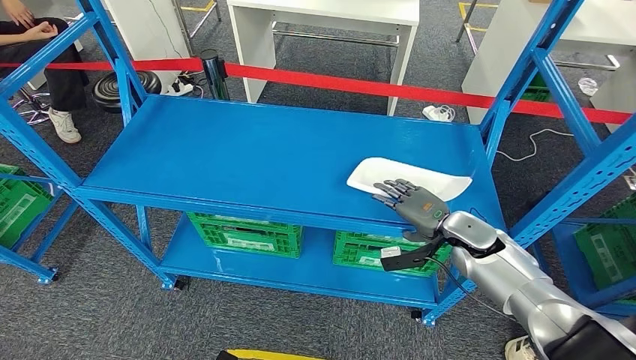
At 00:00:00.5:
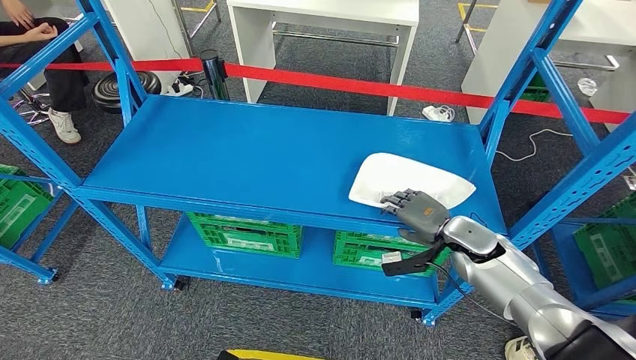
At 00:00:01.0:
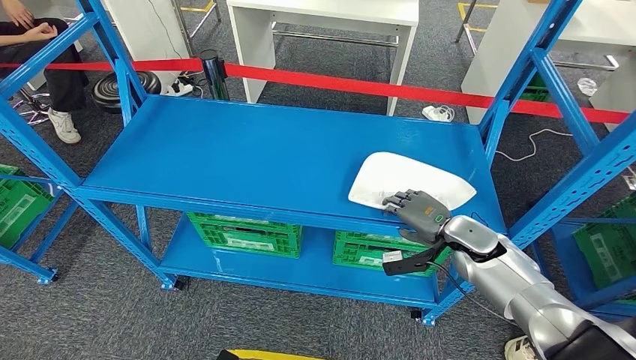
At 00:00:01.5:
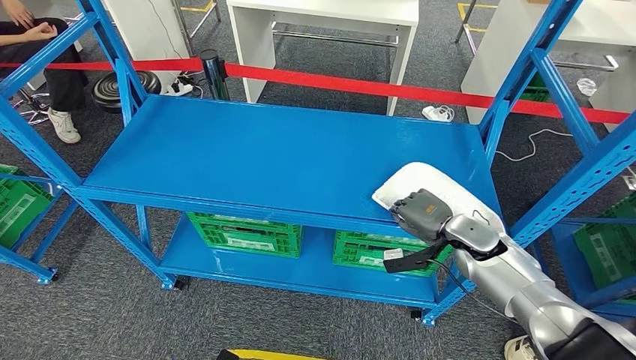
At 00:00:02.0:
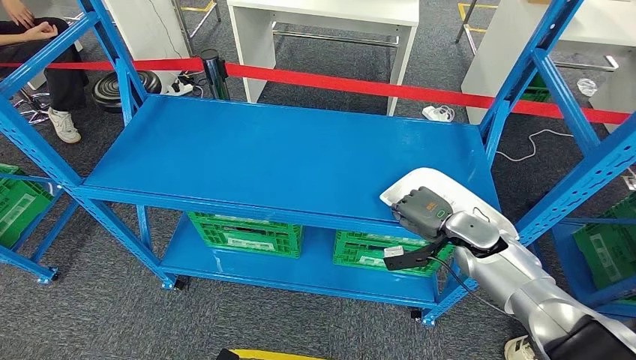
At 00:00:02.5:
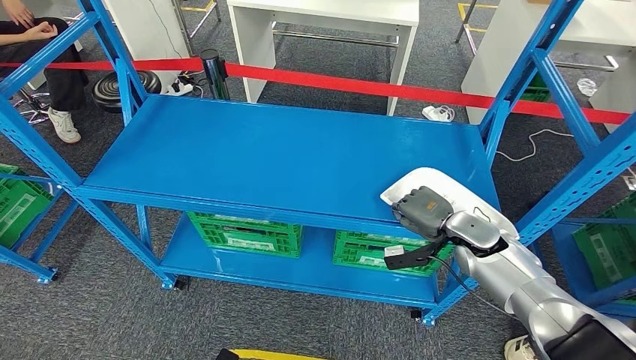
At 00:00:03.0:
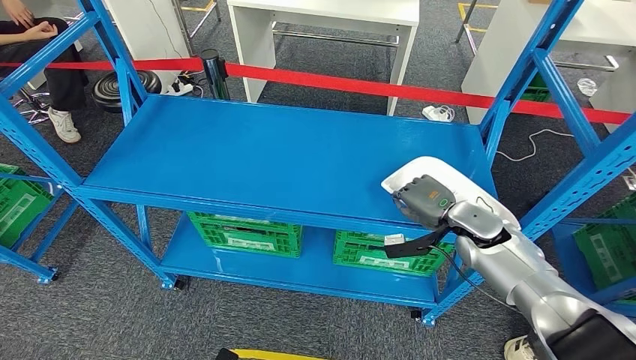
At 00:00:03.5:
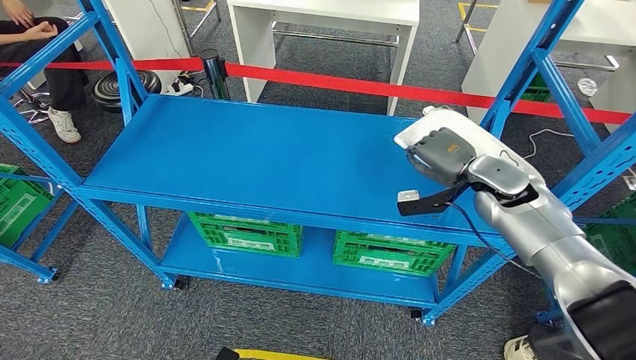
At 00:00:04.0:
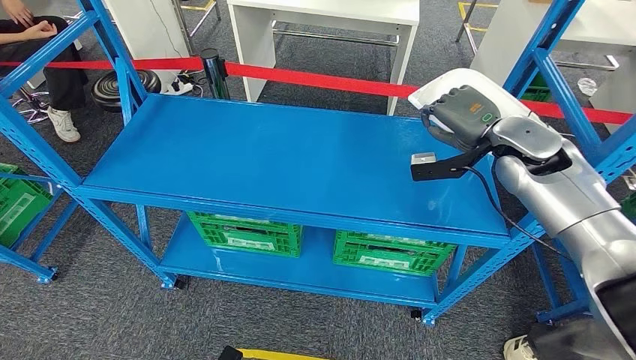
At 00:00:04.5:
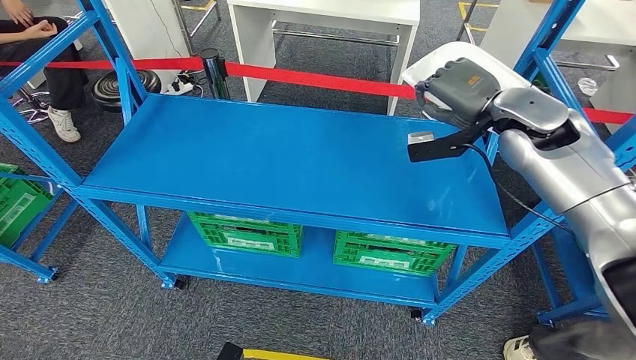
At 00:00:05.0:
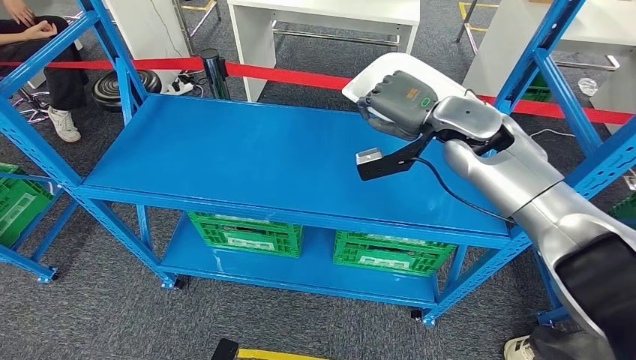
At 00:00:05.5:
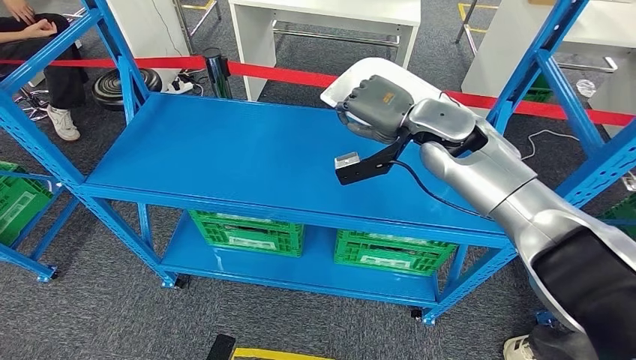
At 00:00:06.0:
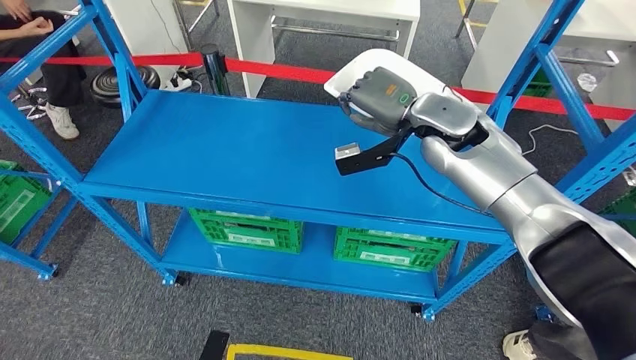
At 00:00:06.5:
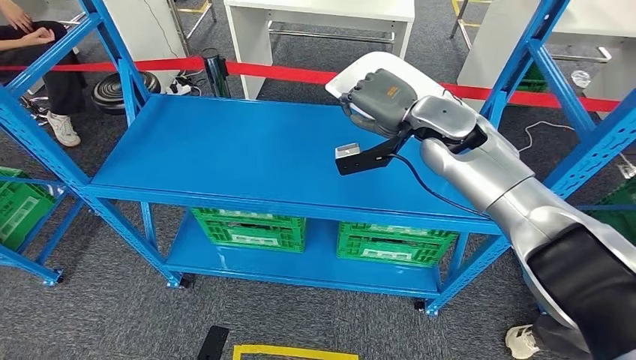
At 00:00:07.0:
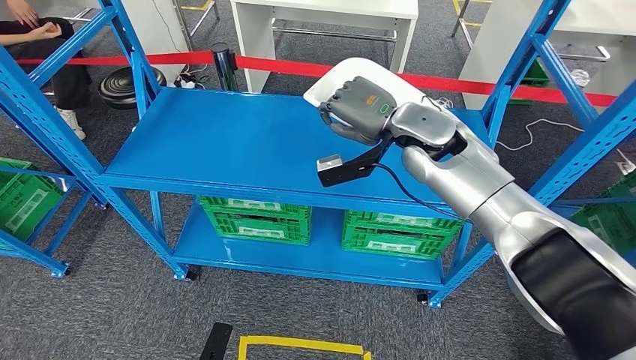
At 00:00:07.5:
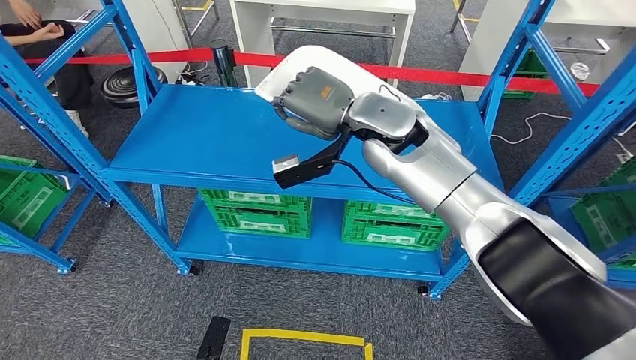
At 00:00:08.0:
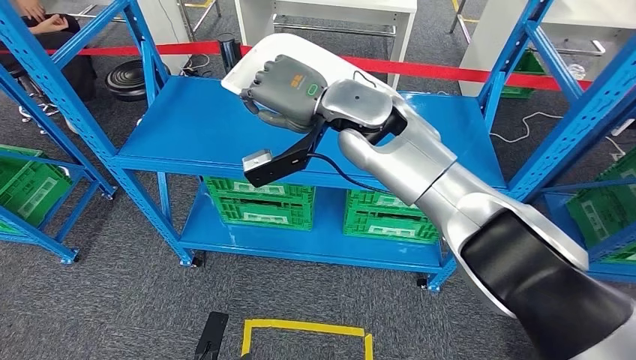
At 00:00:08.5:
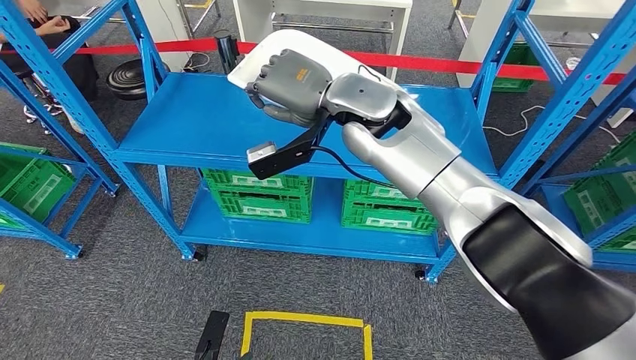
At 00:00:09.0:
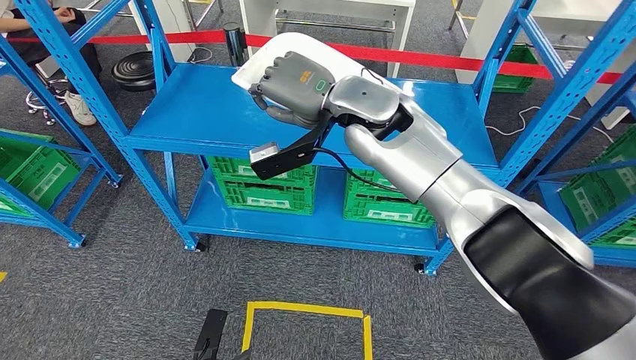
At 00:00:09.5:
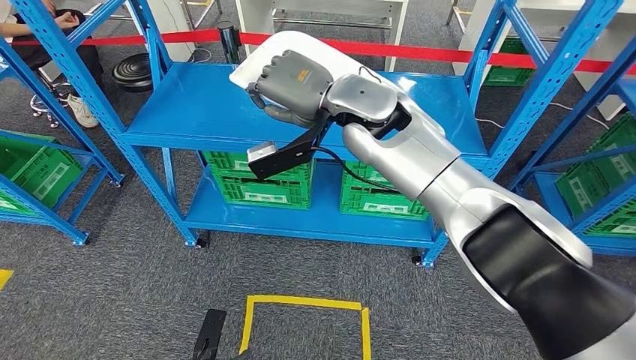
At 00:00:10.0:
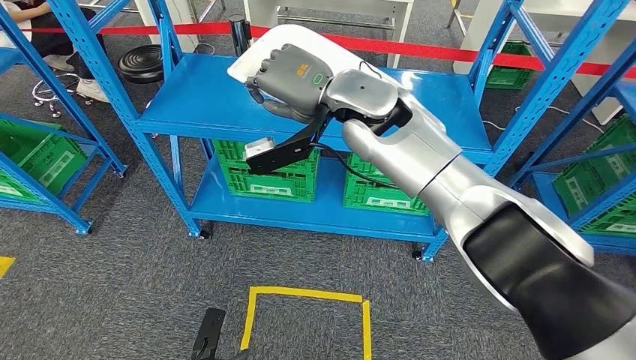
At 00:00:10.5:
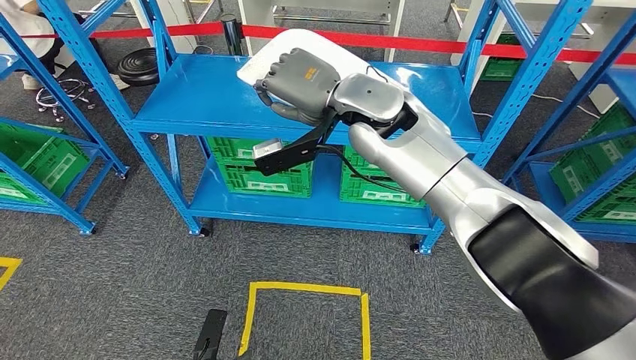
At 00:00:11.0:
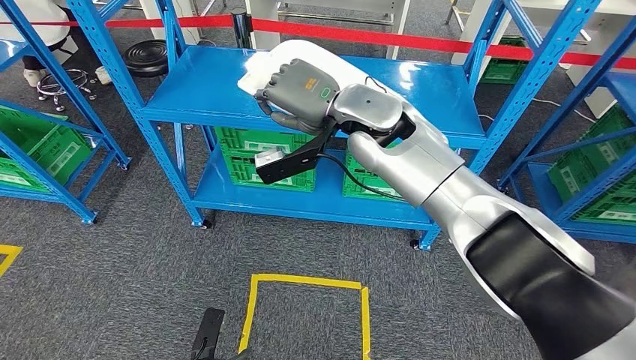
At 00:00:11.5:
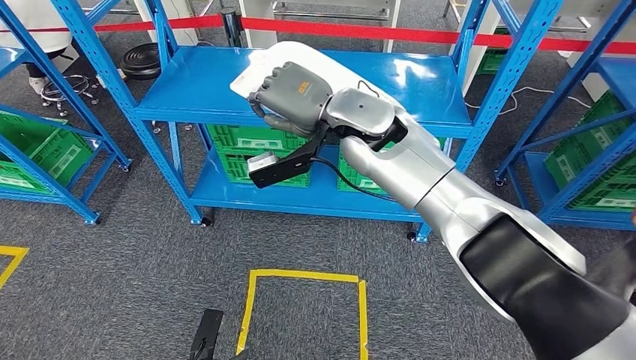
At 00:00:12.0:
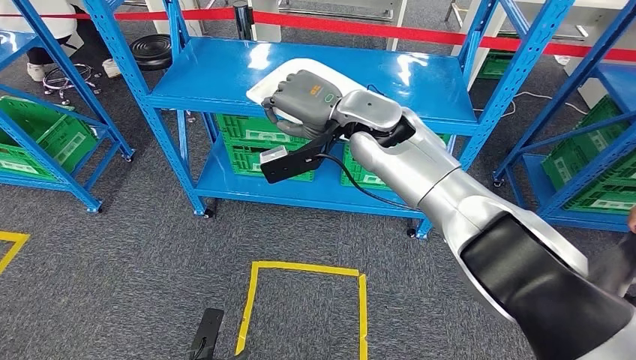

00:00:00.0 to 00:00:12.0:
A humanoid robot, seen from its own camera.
Step, 00:00:00.0 to 00:00:05.5: Pick up the small parts from the shelf.
00:00:00.0 to 00:00:02.0: Both hands stay about where they are.
00:00:02.0 to 00:00:04.0: The right hand goes roughly 20 cm upward.

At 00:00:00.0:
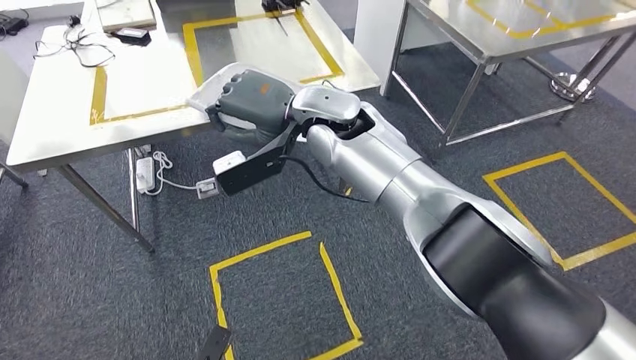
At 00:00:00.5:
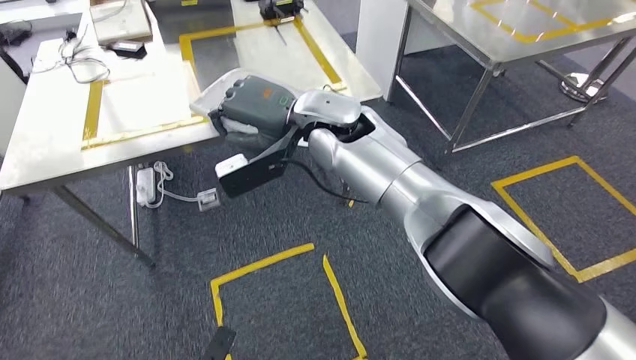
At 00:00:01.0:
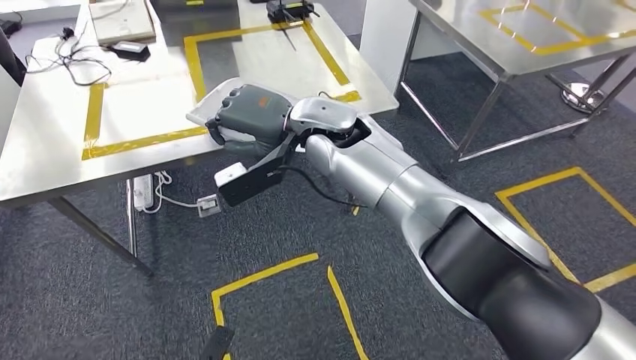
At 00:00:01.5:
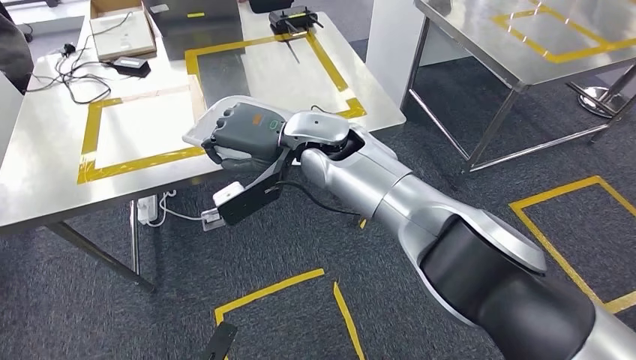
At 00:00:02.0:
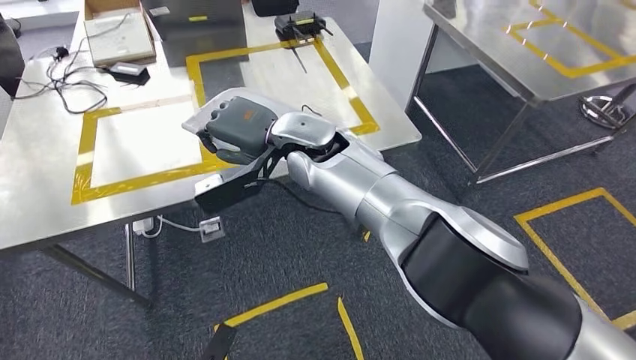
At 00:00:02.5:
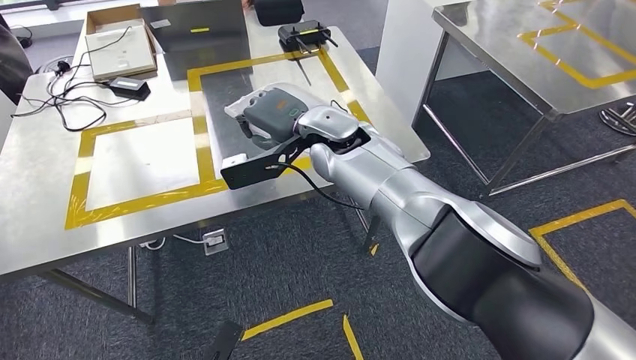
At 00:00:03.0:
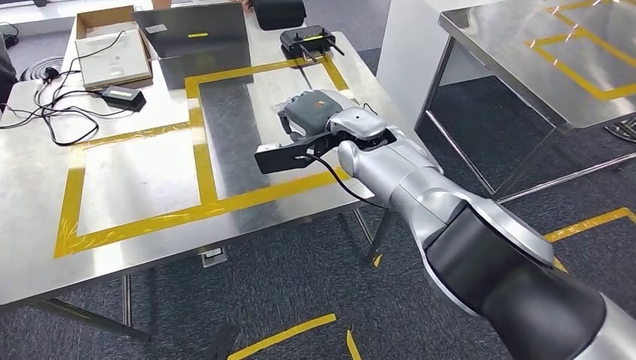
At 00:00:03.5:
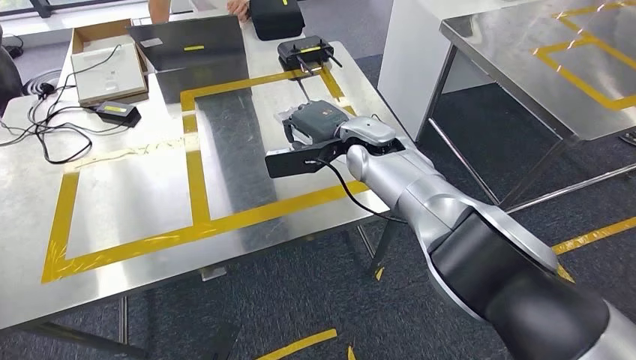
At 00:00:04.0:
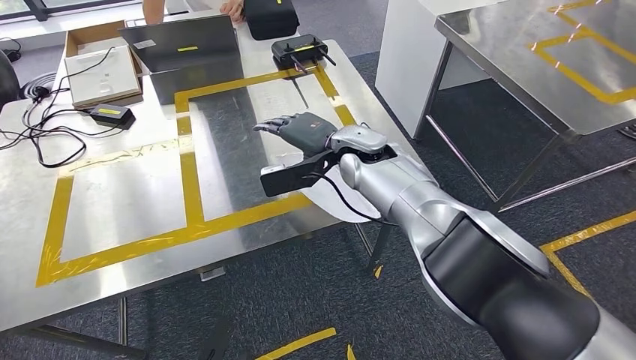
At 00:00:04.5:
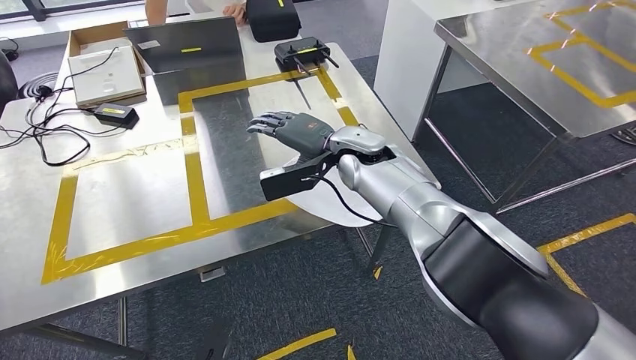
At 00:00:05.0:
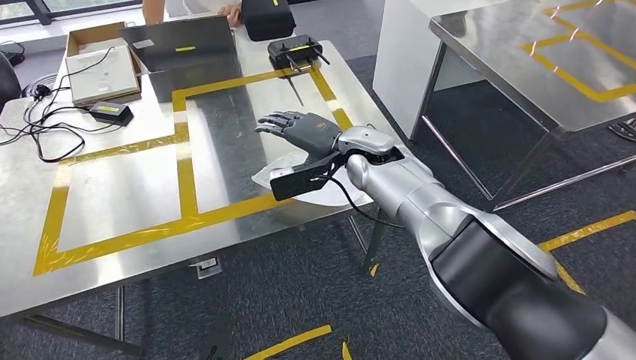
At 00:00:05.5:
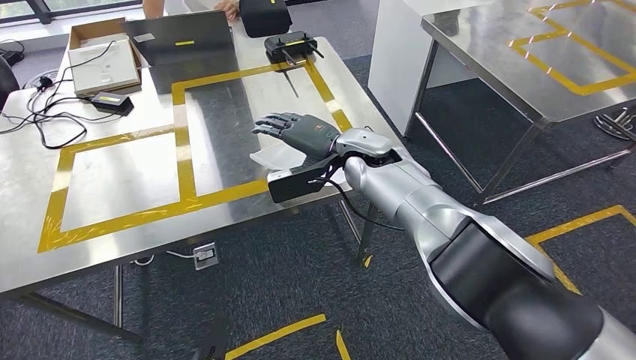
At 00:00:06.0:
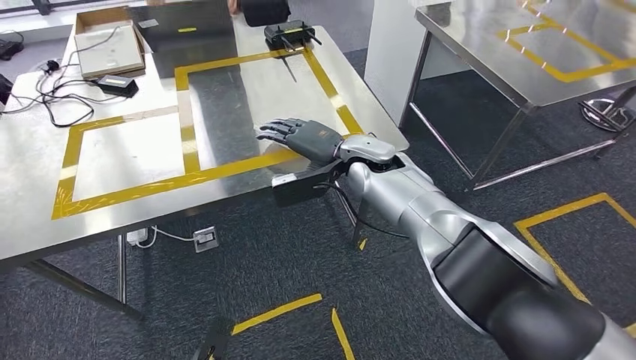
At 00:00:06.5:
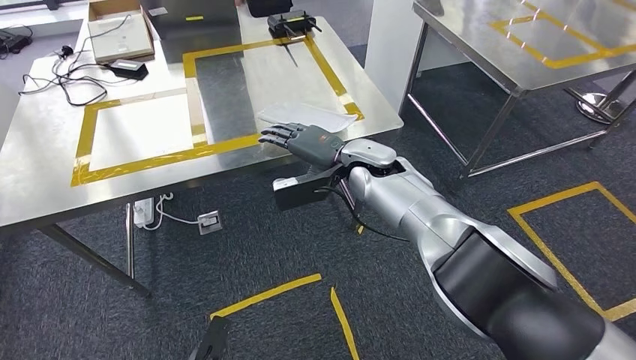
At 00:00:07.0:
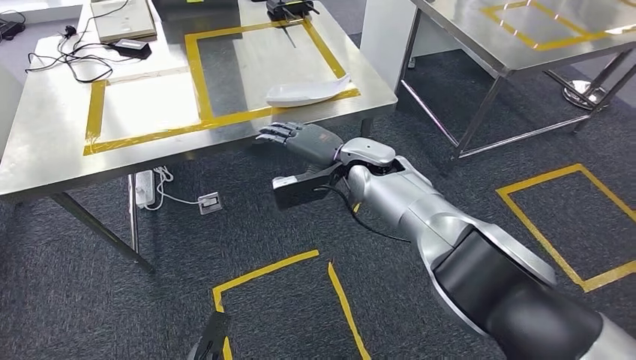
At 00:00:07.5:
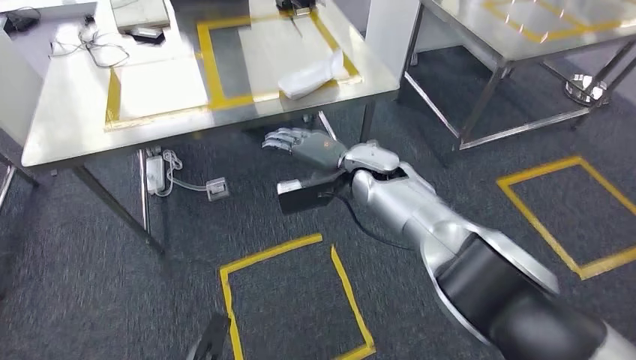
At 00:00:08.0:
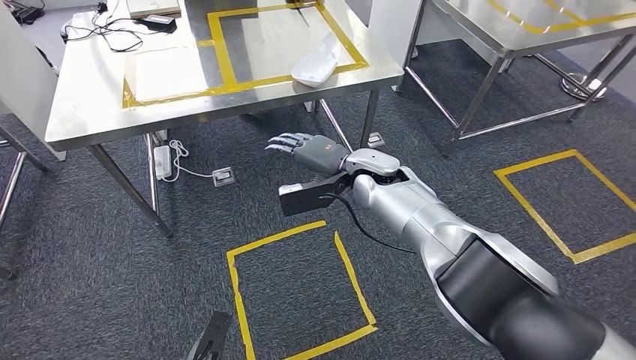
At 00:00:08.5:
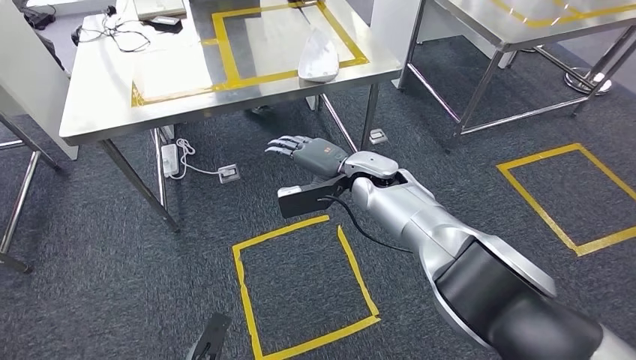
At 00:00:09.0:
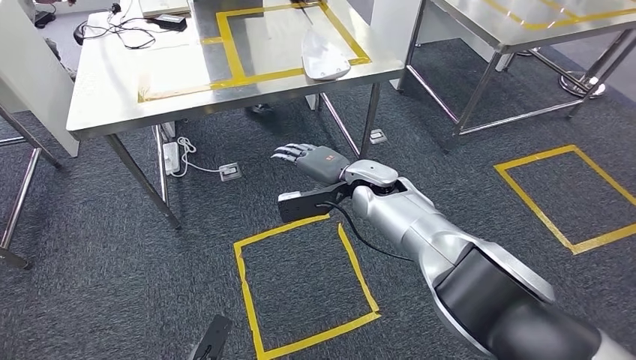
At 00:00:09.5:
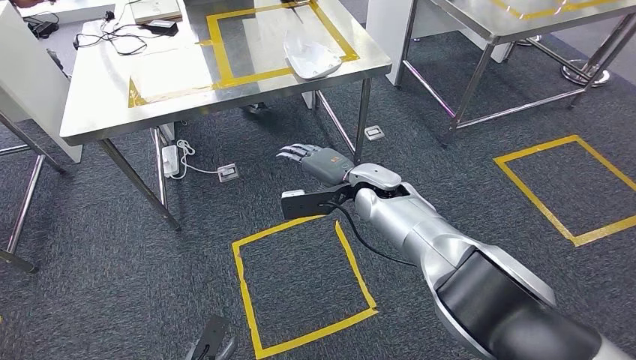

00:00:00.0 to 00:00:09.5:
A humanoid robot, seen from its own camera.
Step, 00:00:00.0 to 00:00:02.5: Move the small parts to the workbench.
Step, 00:00:03.0 to 00:00:04.5: Insert the small parts into the corresponding slots on the workbench.
Step, 00:00:05.0 to 00:00:09.5: Return to the initial position at the workbench.
